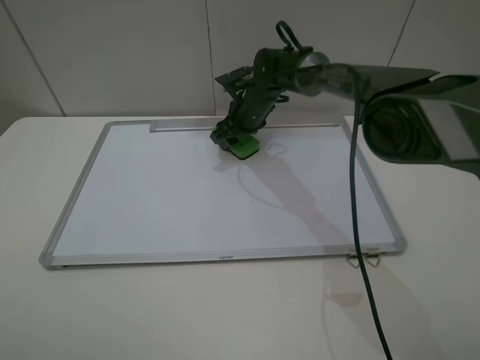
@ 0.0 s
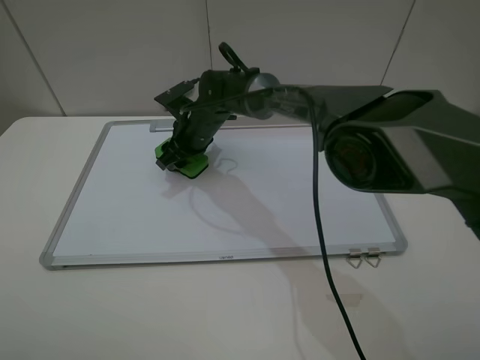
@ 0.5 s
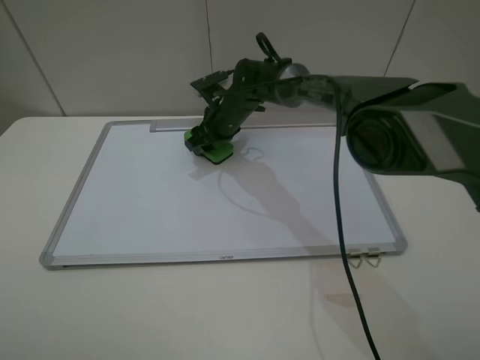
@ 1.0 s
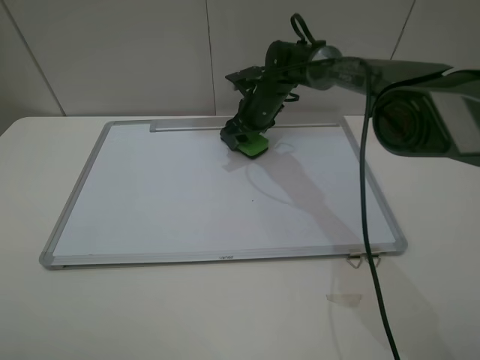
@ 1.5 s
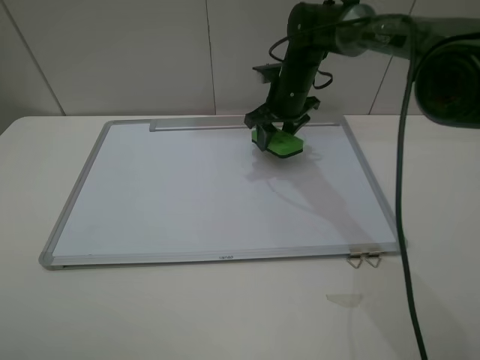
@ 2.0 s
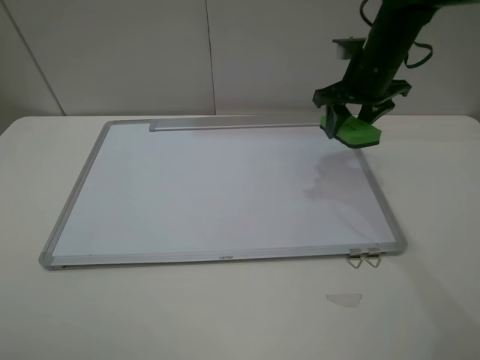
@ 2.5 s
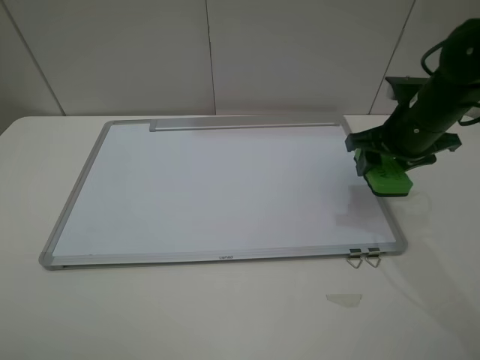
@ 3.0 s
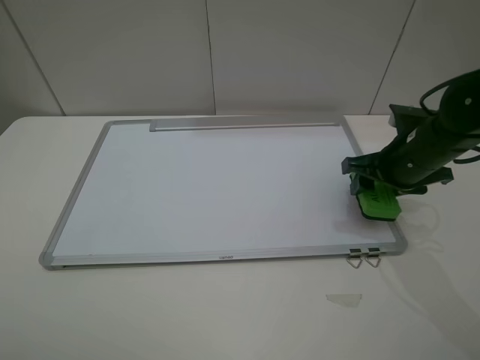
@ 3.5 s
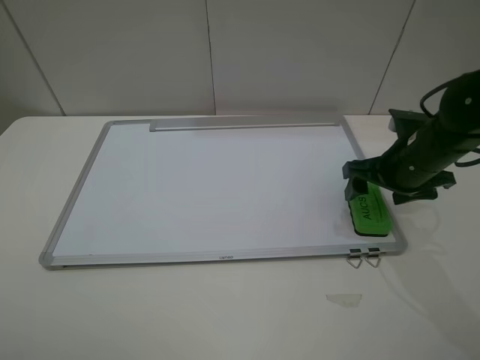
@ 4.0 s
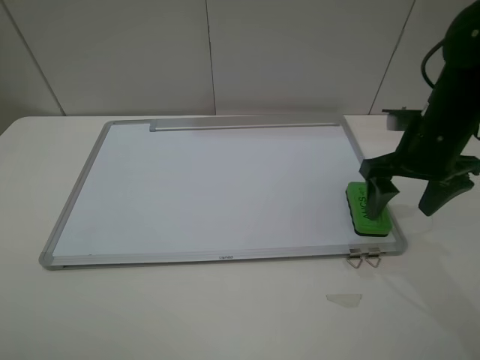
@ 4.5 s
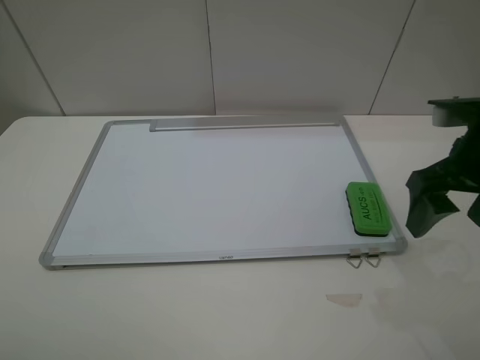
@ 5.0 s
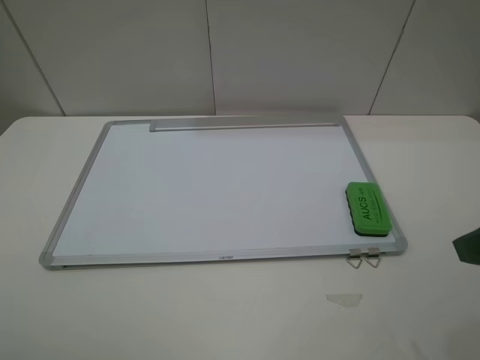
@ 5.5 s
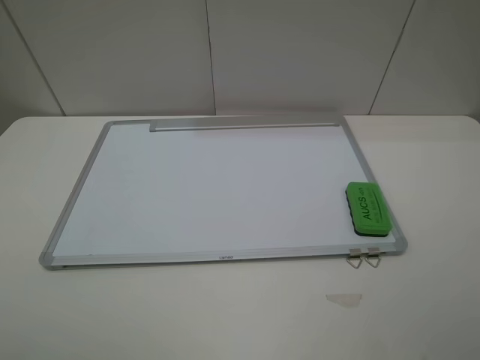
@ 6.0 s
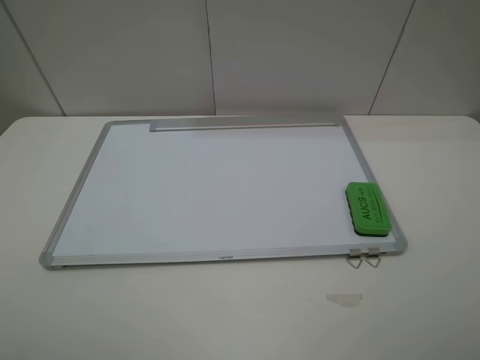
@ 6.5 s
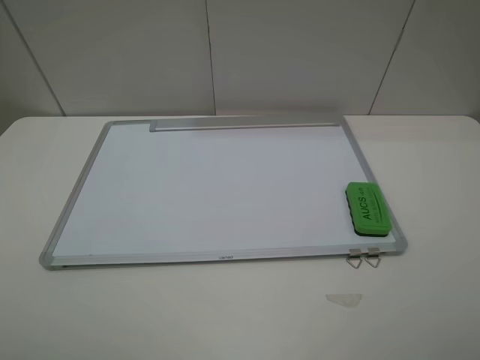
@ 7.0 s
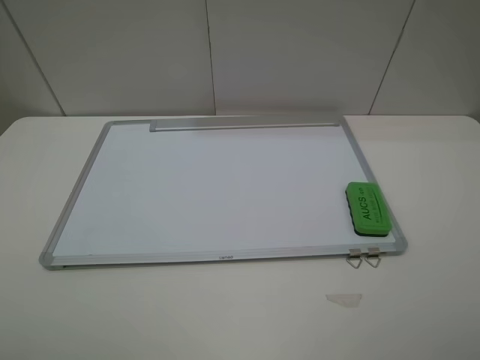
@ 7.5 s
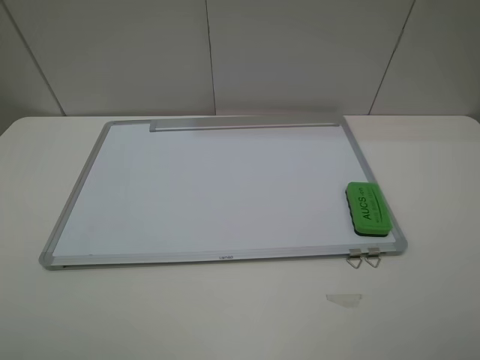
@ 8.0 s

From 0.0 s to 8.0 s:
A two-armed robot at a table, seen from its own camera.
Step, from 2.0 s to 4.0 s: Place the eraser with the right gripper.
From 0.0 s to 2.0 s: The right gripper travels upward and to the right by roughly 10 cm.
From 2.0 s to 4.0 s: The right gripper travels backward and to the right by some 20 cm, and opens its fingers.
From 4.0 s to 6.0 s: The right gripper goes roughly 25 cm backward and upward.
